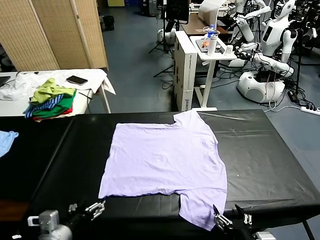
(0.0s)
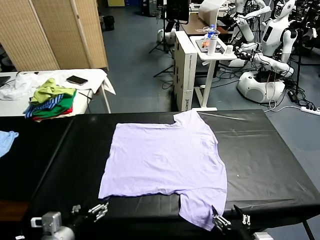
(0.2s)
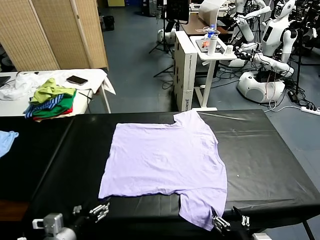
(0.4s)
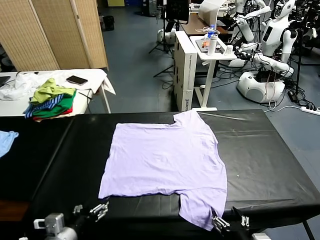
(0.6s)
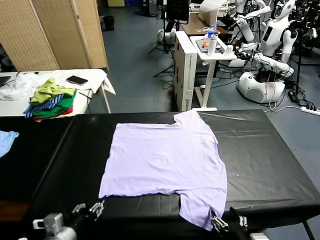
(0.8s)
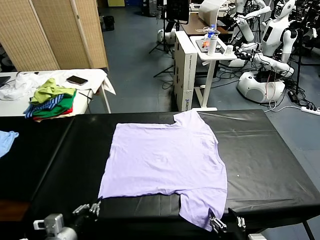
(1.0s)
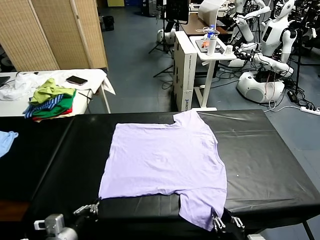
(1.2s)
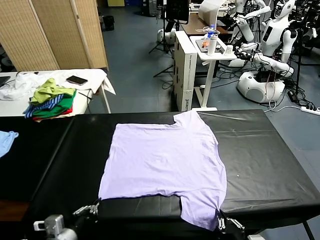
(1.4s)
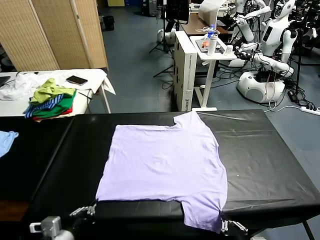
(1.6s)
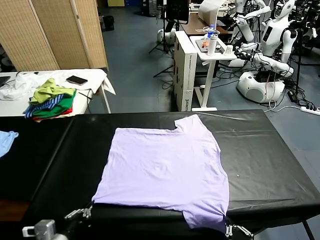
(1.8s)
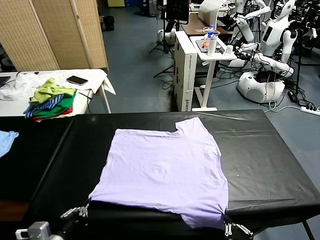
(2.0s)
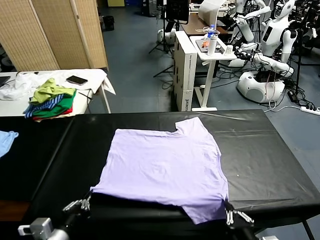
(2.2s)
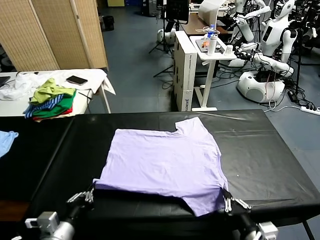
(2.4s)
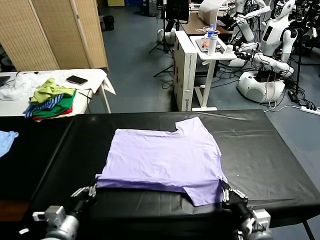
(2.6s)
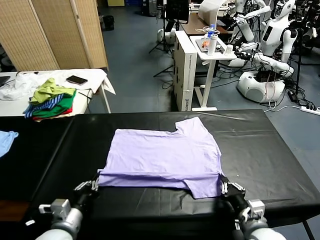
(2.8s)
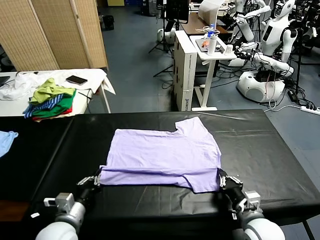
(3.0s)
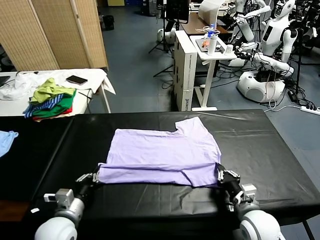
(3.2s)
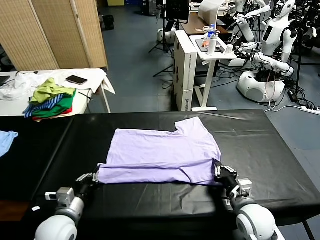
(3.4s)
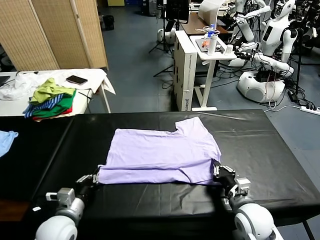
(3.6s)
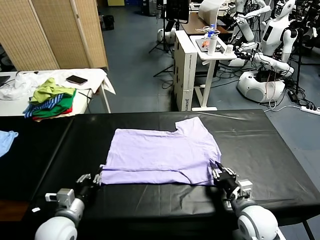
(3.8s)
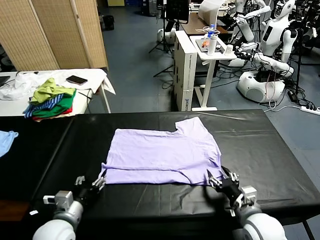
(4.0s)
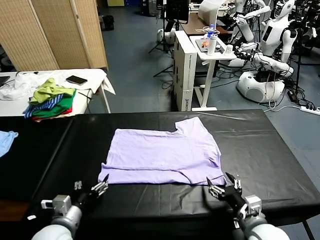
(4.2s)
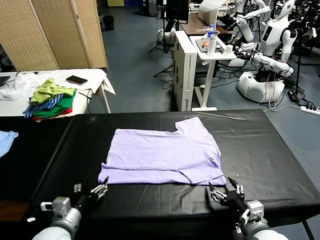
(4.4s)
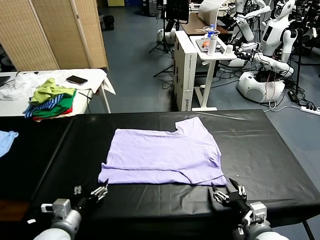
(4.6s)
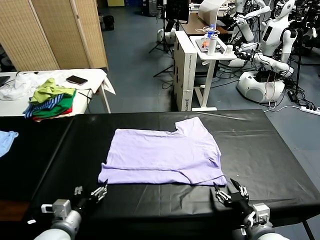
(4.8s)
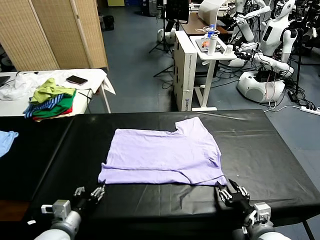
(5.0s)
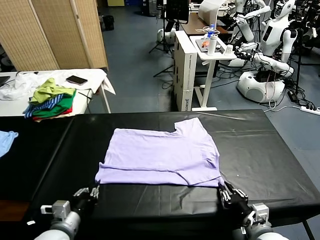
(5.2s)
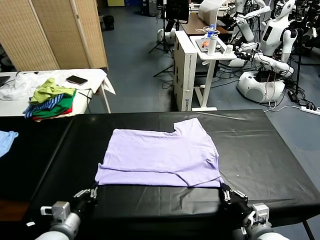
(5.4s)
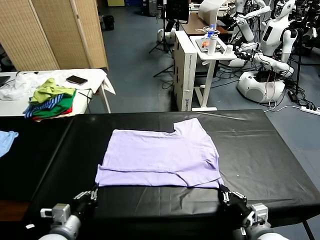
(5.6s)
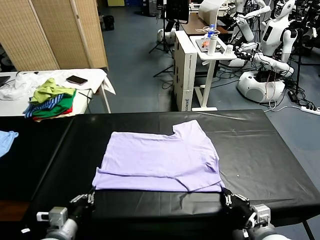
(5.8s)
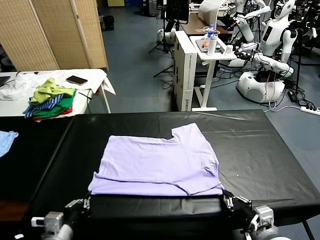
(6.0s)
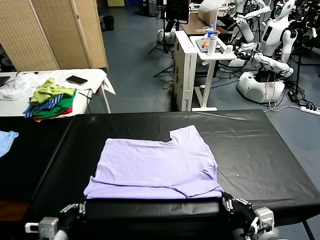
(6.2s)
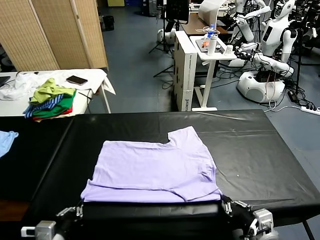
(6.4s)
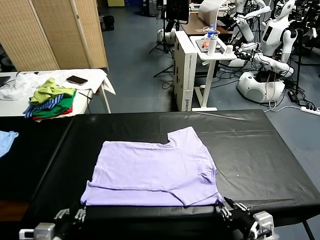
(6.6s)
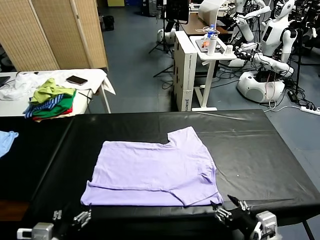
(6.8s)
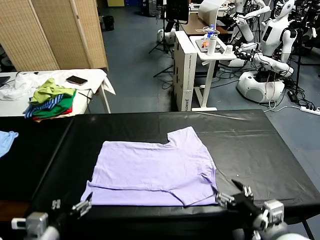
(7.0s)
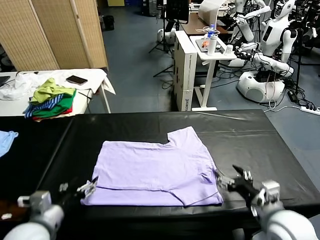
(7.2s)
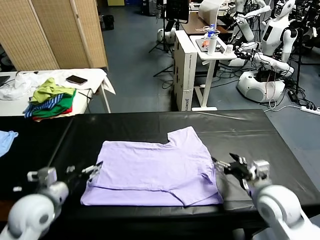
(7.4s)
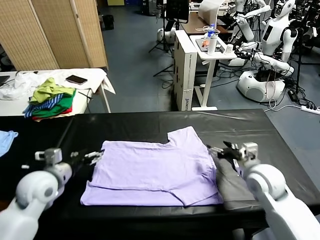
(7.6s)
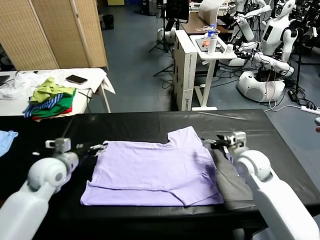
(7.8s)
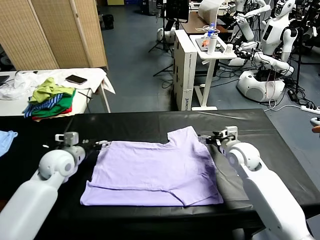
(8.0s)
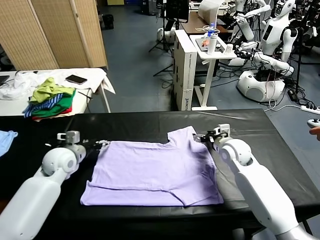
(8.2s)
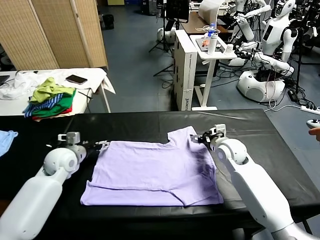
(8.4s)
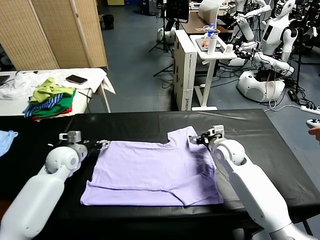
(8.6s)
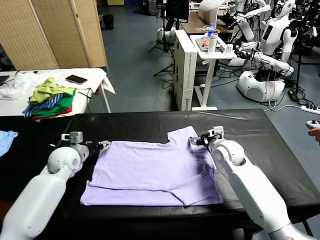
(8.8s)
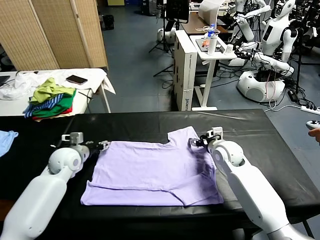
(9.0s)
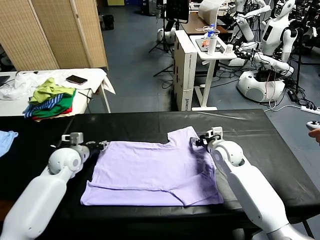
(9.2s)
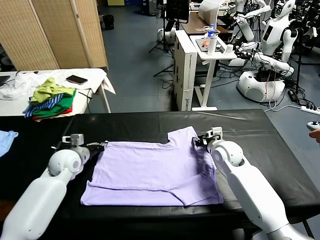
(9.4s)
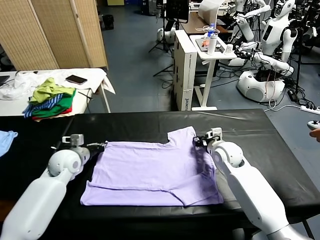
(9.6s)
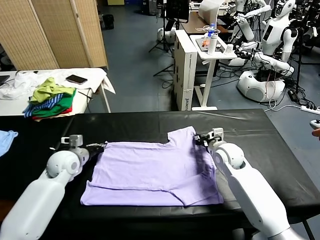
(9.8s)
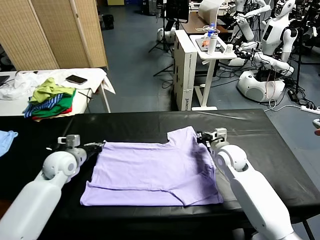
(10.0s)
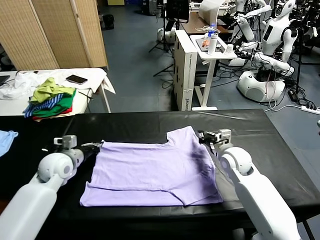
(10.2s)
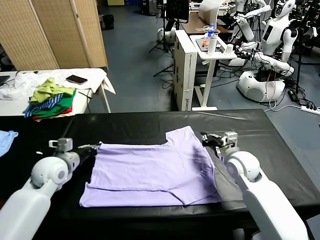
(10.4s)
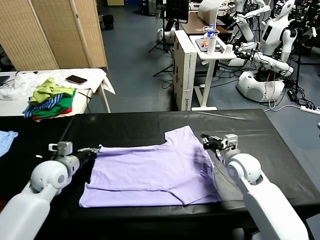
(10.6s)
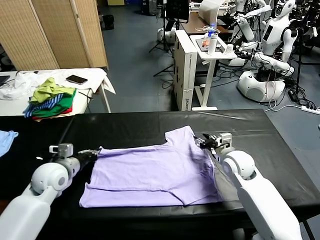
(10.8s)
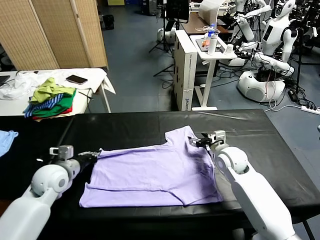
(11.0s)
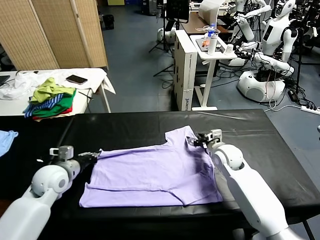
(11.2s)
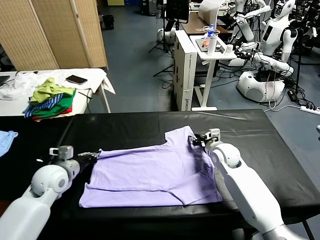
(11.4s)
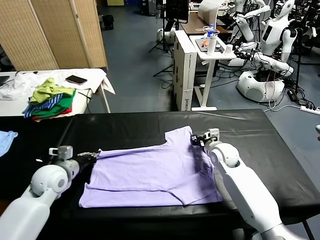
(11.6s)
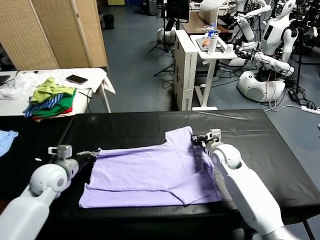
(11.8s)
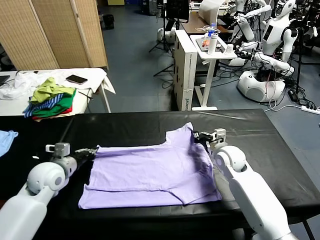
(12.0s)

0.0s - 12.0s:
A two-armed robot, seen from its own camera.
Task of the whole recording: fold and organize the clothes.
Step, 0.0s - 1.4s: use both grippers simultaneously to clamp the lower edge of the clothing fabric.
Step, 1.8s - 4.0s: use both grippers to drag the lower edge of the fabric forward and fold it over the upper edge.
Step, 4.2s - 6.6s: Drag the clothes downward with both gripper.
Step, 7.0s - 11.8s: use both grippers simultaneously to clamp the upper edge of the clothing fabric.
1.6s - 3.0s: The left gripper is displaced forward by roughly 10 cm. Meanwhile the right gripper shifts some 20 cm forward.
3.0s - 4.4s: The left gripper opens up. The right gripper moves backward, some 10 cm, and opens.
4.4s - 6.0s: The right gripper closes its fingers. Meanwhile the left gripper changes place by about 5 cm, and closes its fingers.
6.0s - 7.6s: Both grippers travel together forward, about 25 cm. The left gripper opens up; the right gripper opens.
7.6s - 9.0s: The right gripper moves some 5 cm, and closes its fingers. The left gripper moves forward and downward, approximately 10 cm.
9.0s - 10.4s: Both grippers travel together backward, approximately 5 cm. The left gripper closes.
10.4s - 12.0s: The right gripper opens and closes again.

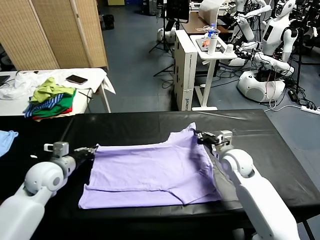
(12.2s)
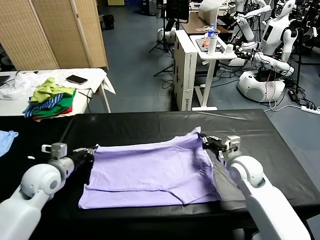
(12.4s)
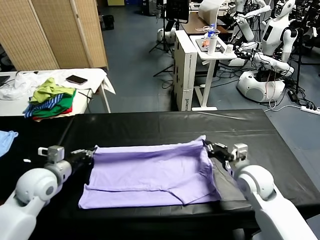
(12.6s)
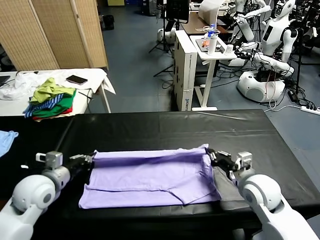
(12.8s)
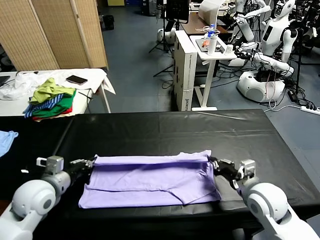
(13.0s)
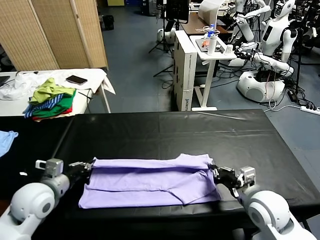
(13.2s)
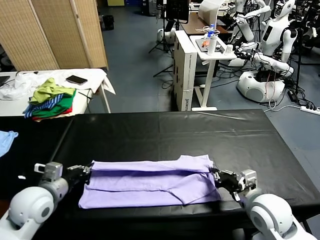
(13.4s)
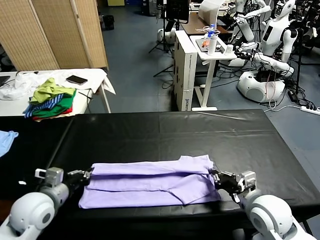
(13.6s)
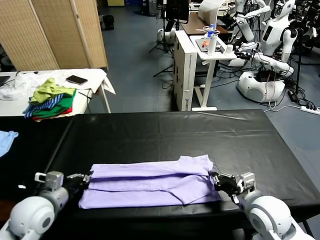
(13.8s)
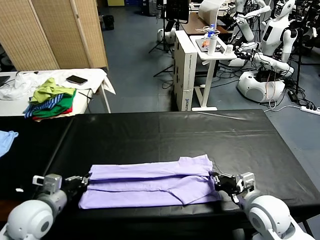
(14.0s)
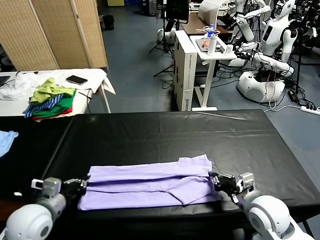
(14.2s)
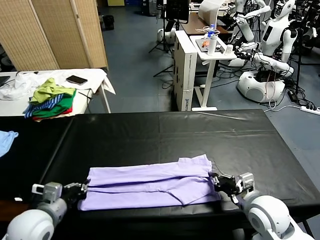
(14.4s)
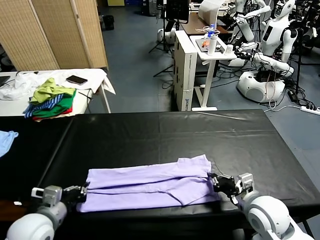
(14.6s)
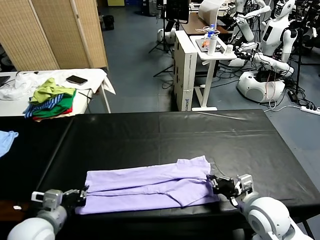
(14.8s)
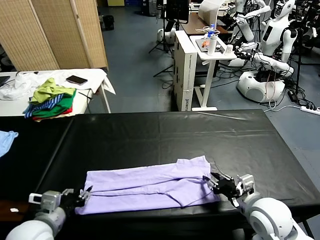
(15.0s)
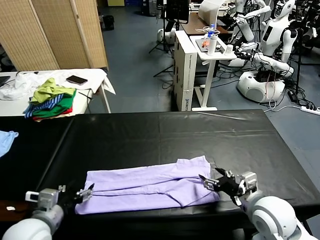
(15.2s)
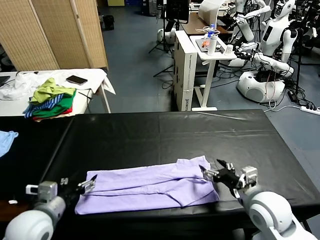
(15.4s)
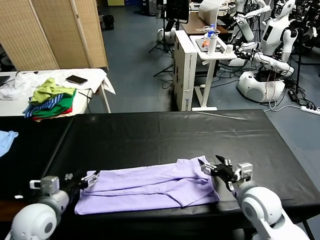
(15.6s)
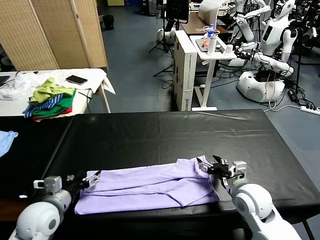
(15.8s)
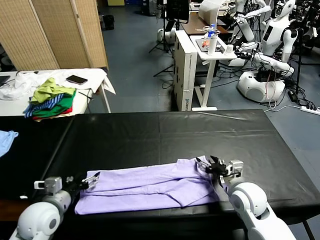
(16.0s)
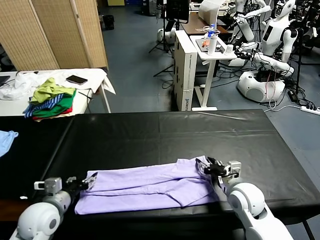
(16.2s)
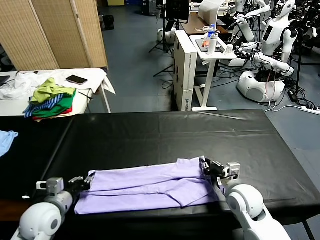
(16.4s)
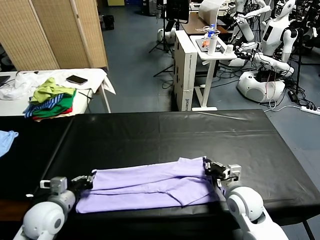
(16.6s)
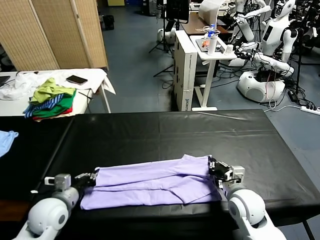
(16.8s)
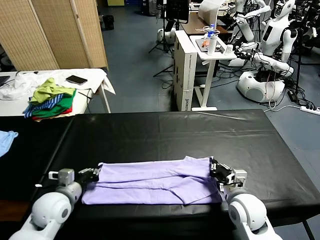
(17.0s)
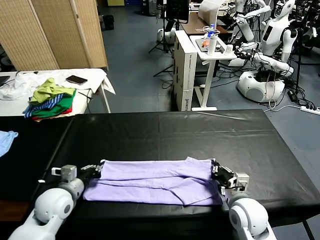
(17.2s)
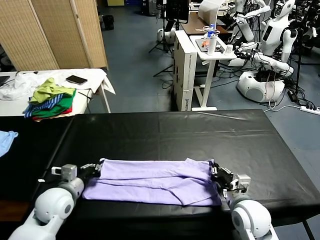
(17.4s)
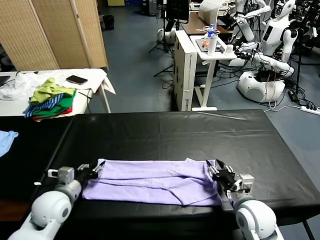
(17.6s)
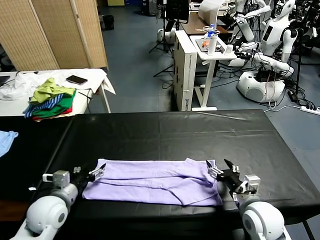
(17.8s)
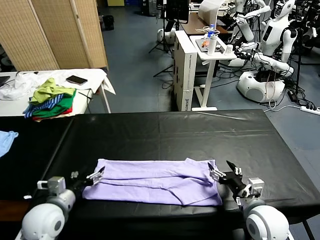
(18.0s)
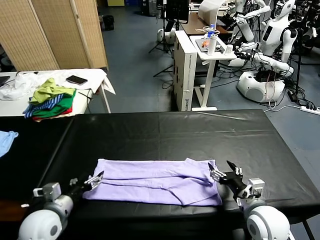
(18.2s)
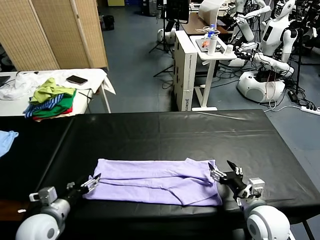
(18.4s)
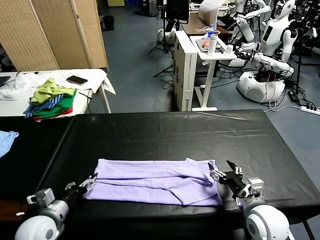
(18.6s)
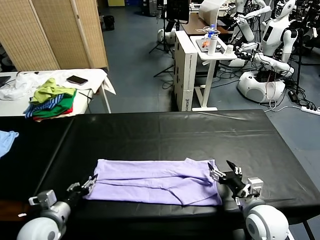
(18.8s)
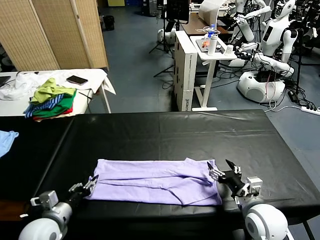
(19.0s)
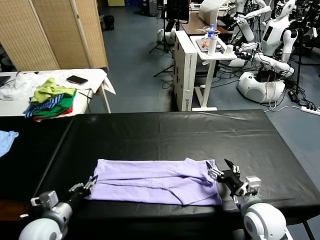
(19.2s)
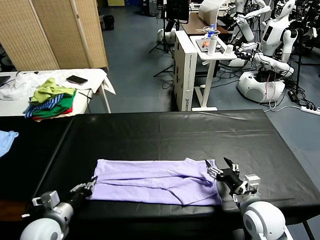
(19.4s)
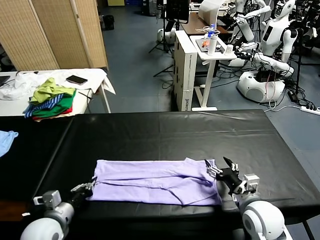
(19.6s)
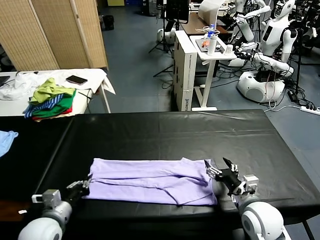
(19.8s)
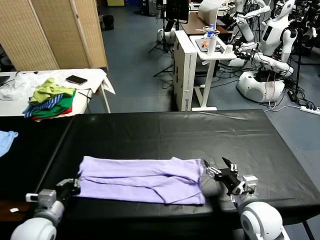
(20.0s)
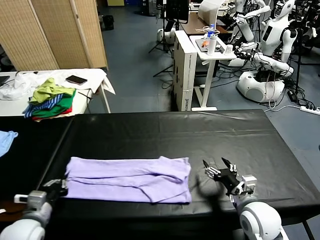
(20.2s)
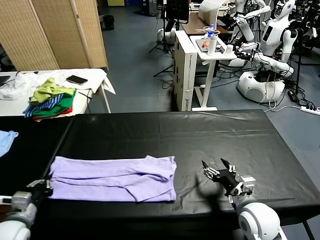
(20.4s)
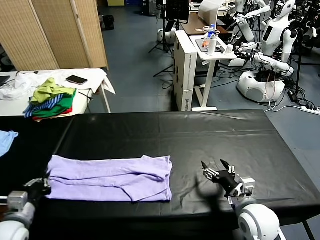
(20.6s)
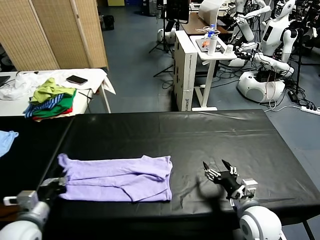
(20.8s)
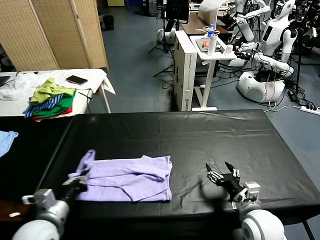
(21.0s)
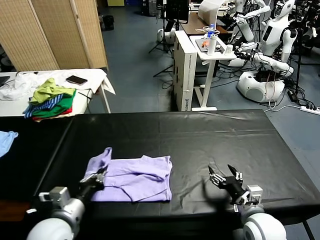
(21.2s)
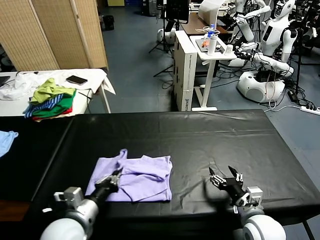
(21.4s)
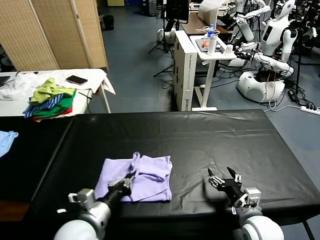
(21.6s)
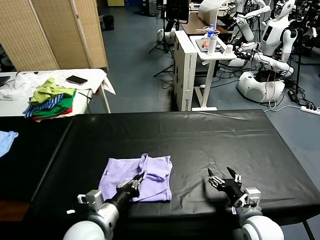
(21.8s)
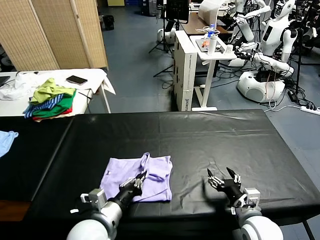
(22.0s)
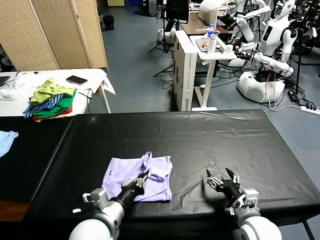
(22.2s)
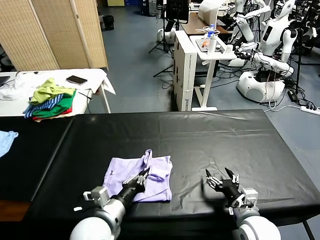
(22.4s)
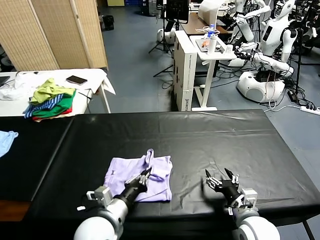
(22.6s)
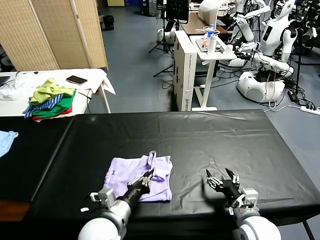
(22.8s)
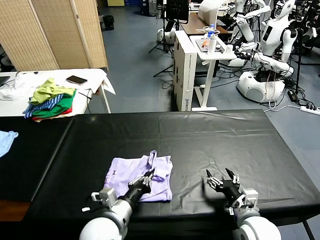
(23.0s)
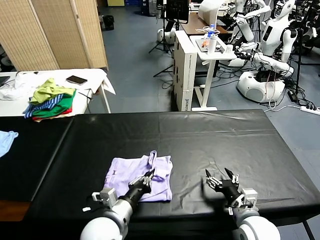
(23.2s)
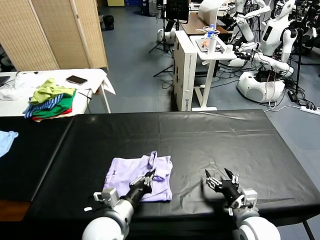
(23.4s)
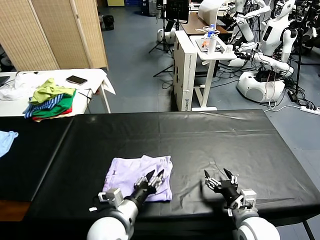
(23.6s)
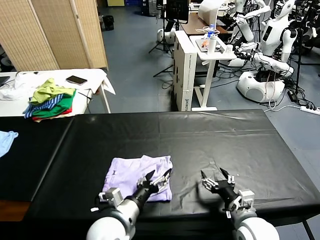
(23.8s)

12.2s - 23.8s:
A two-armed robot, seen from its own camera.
Task of the whole recording: fold and organize the clothes.
Step, 12.2s - 15.2s: use both grippers to drag the upper edge of the fabric backward and fold it over the lower edge.
Step, 15.4s - 19.6s: use the left gripper to clamp the left edge of the fabric.
12.2s - 13.6s: The grippers both shift backward by roughly 10 cm.
13.6s - 15.0s: The left gripper travels backward by approximately 5 cm, and opens. Meanwhile the right gripper opens.
15.0s - 16.6s: The right gripper shifts approximately 10 cm downward and forward, and closes its fingers. Meanwhile the left gripper travels forward by approximately 5 cm, and closes.
16.6s - 18.0s: The left gripper opens up. Meanwhile the right gripper heads backward, covering approximately 5 cm, and opens its fingers.
18.0s - 19.4s: The left gripper closes.
19.4s - 21.0s: The left gripper is displaced upward by some 5 cm, and moves about 5 cm to the left and comes back.
21.0s - 22.4s: The left gripper heads to the right, covering roughly 15 cm.
22.4s - 23.8s: The left gripper opens up.
